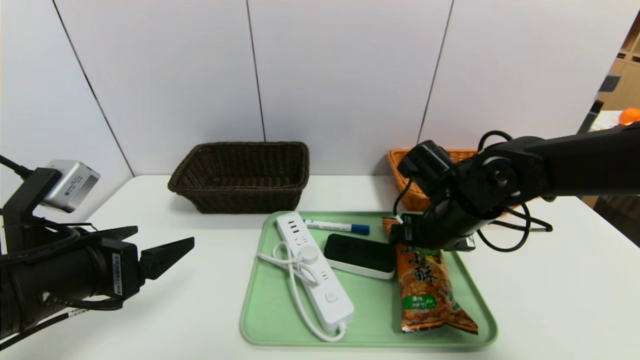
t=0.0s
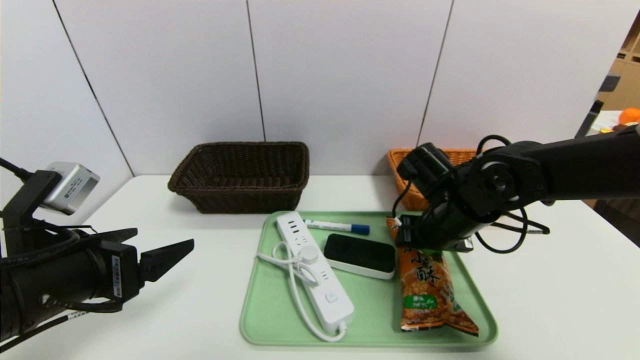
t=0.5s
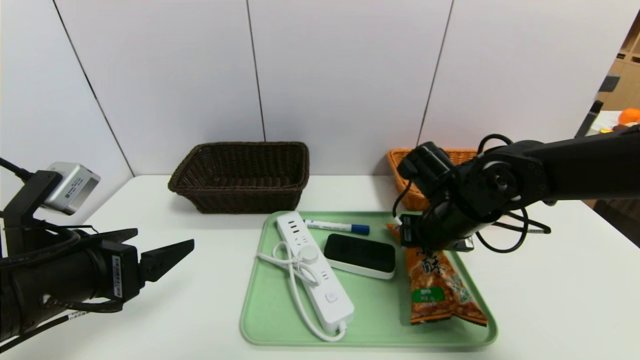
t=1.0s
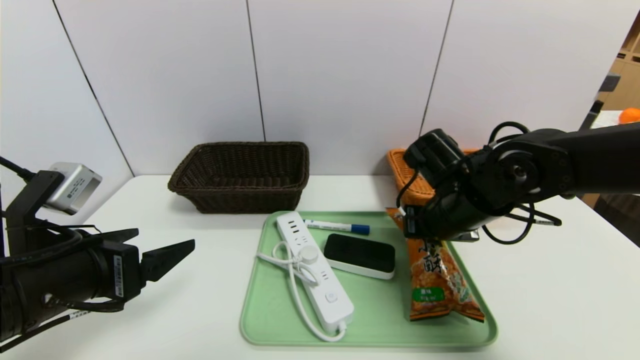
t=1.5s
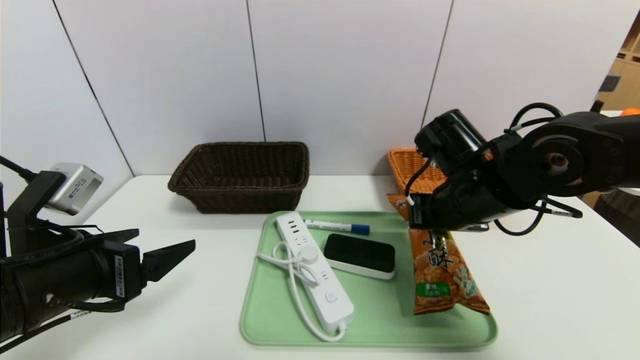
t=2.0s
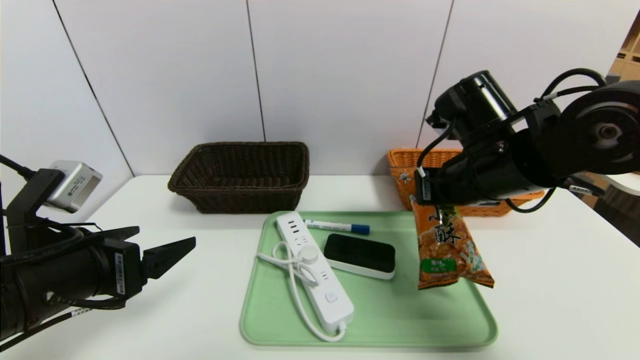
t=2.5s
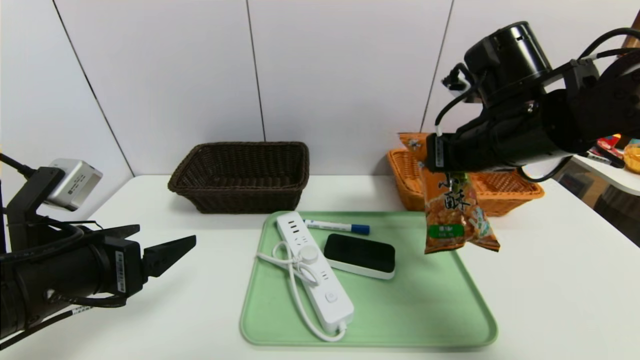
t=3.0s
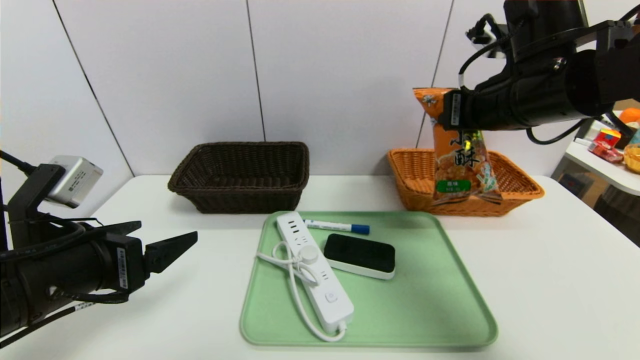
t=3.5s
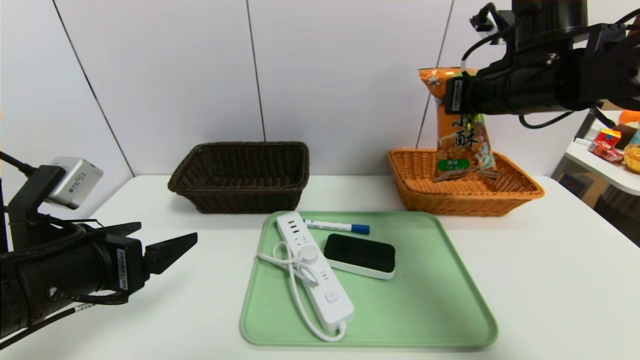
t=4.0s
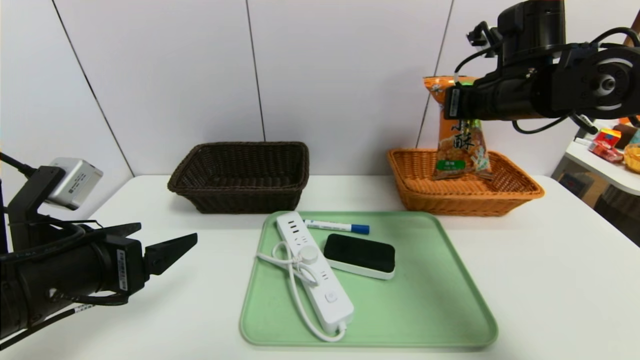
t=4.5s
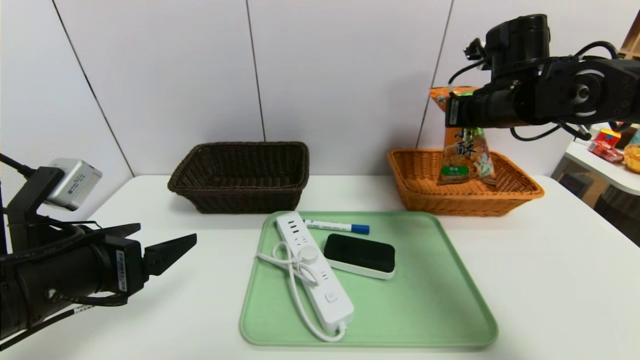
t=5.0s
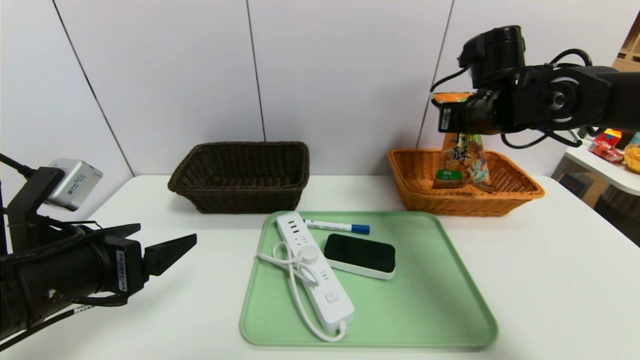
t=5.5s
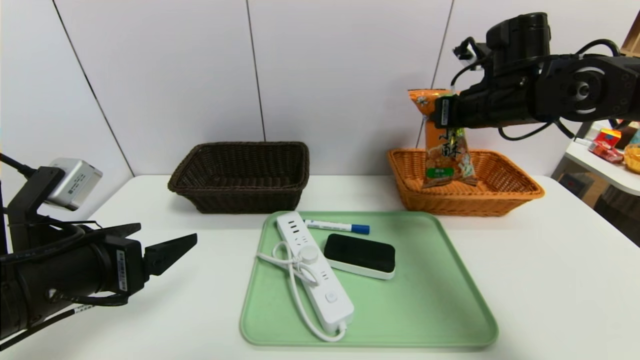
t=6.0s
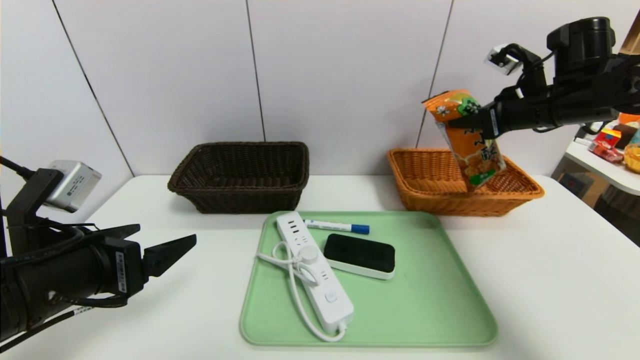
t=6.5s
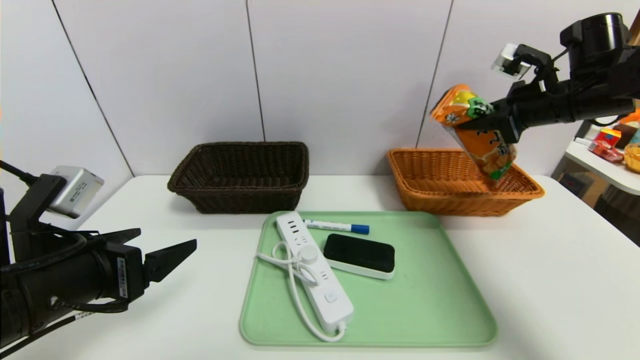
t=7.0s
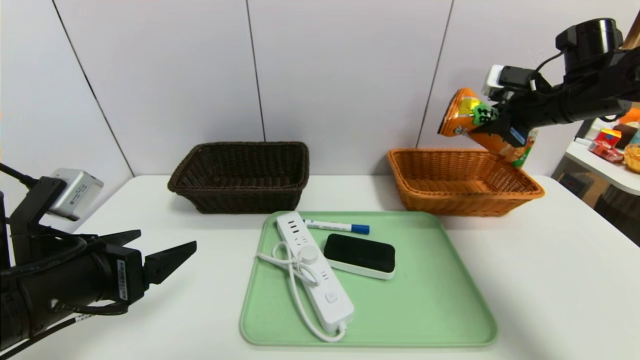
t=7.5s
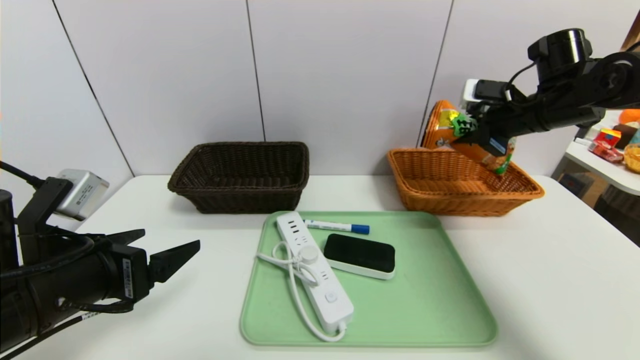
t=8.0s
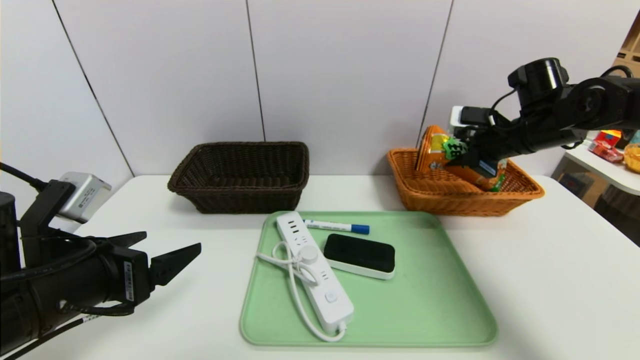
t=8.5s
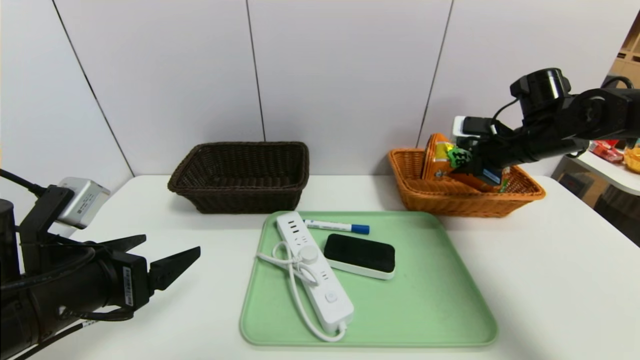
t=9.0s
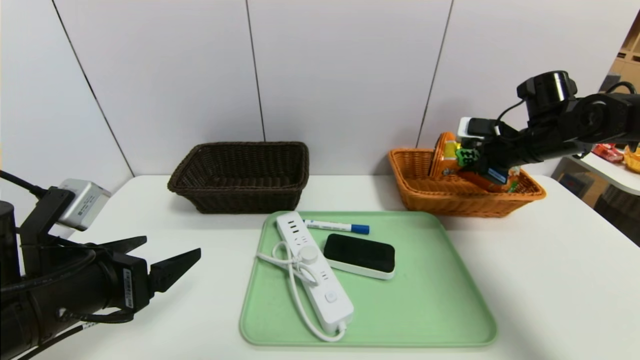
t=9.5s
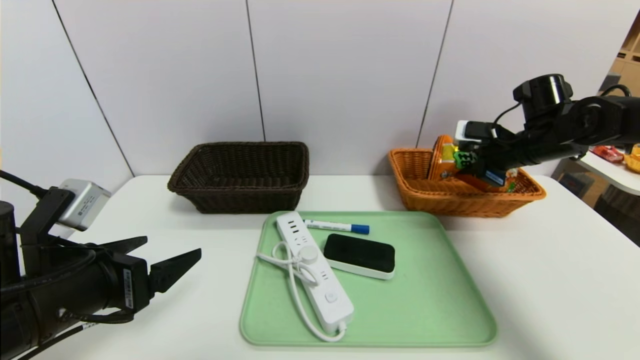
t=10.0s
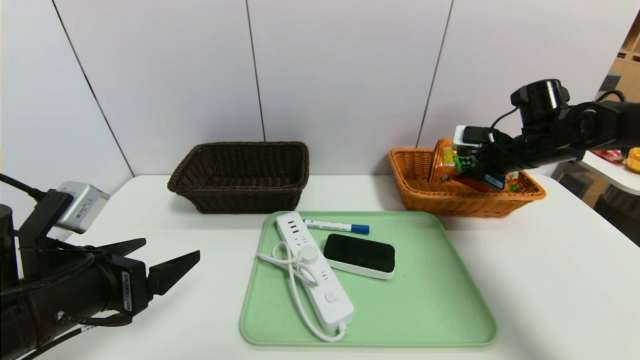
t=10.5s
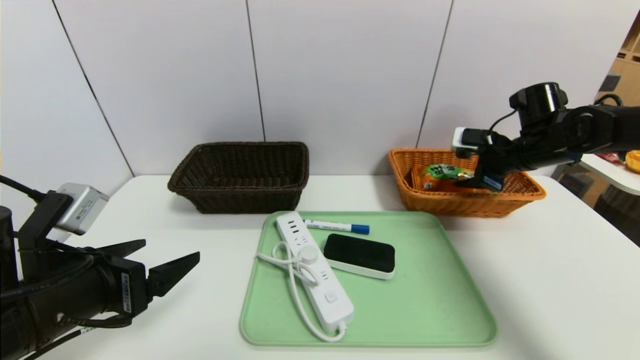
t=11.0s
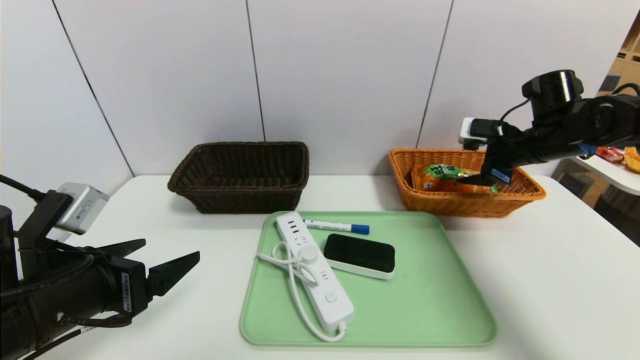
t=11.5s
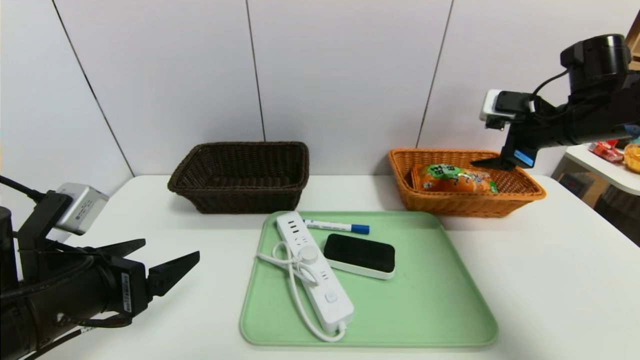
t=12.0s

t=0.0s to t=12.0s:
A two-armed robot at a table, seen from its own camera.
Task of the whole recording: place the food in the right basket with the right gripper, and place the non food items in the left basket with the left gripper.
t=0.0s to t=2.0s: The right gripper ends up some 5 cm from where it was, and closes.
t=2.0s to t=4.0s: The right gripper is displaced upward and to the right by some 10 cm.
t=4.0s to t=6.0s: The right gripper changes place by approximately 5 cm.
t=6.0s to t=8.0s: The right gripper travels to the right by roughly 5 cm.
t=8.0s to t=10.0s: The right gripper heads downward, covering some 5 cm.
t=10.0s to t=12.0s: The right gripper moves upward and backward, roughly 10 cm, and opens its fingers.

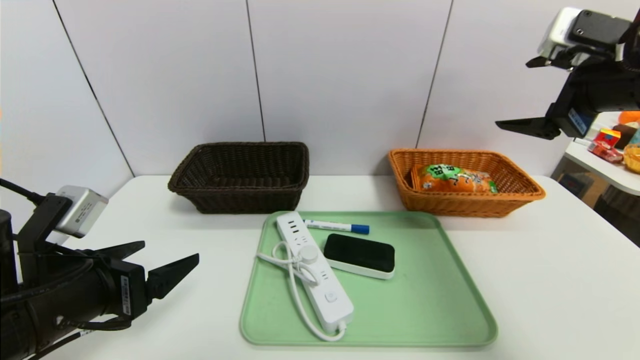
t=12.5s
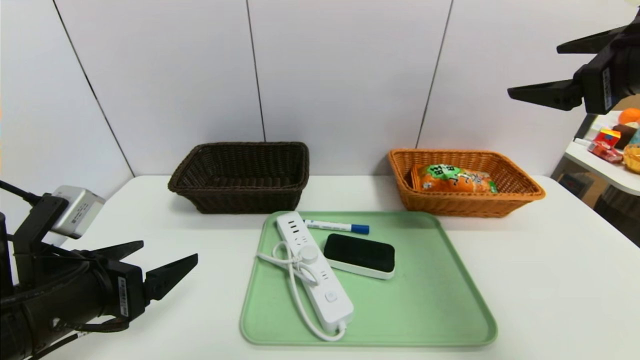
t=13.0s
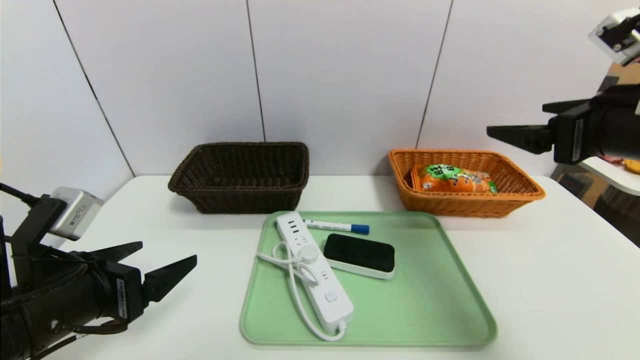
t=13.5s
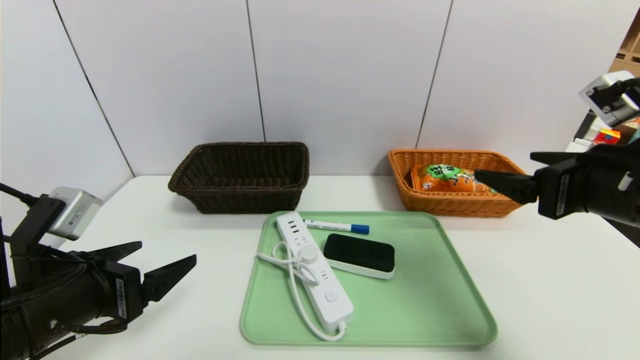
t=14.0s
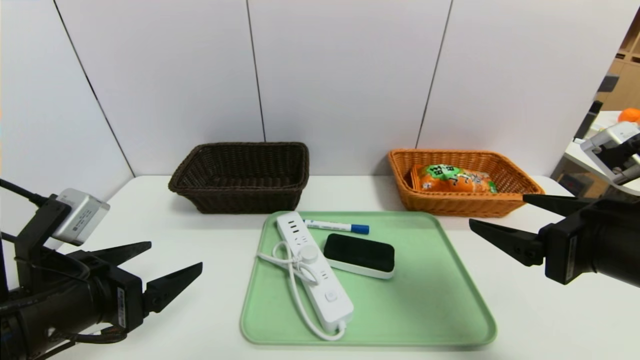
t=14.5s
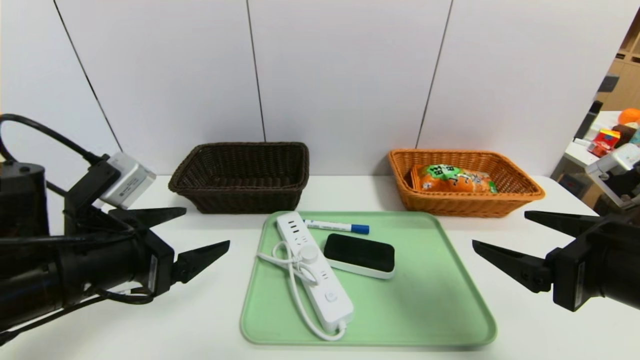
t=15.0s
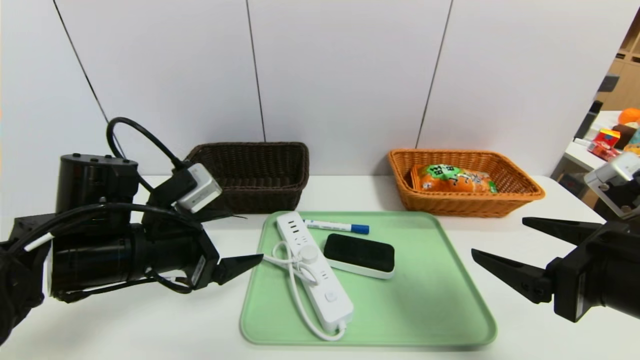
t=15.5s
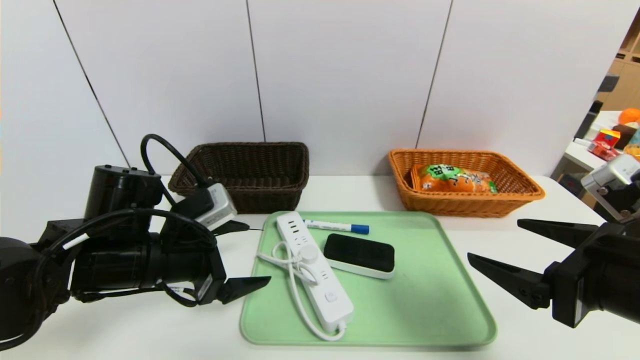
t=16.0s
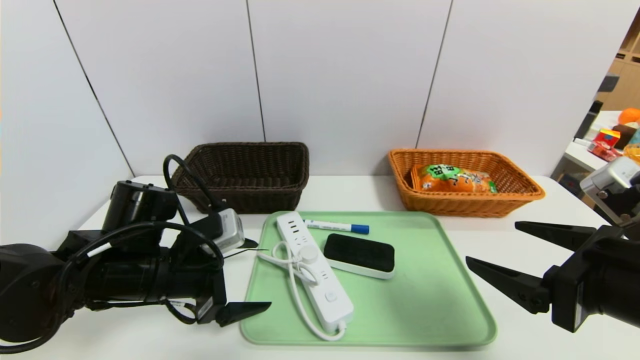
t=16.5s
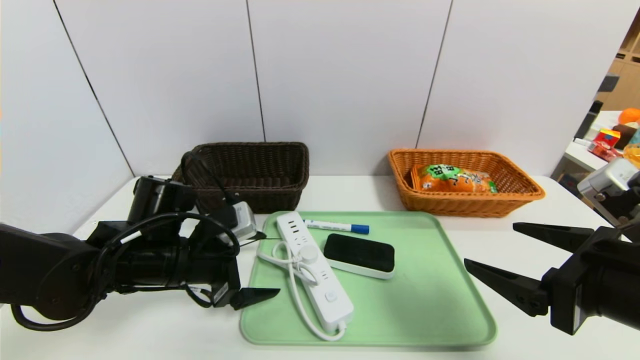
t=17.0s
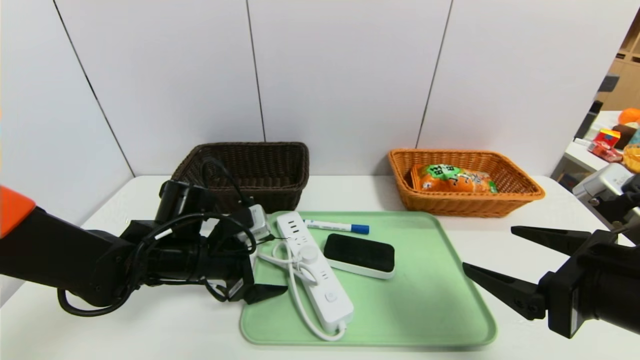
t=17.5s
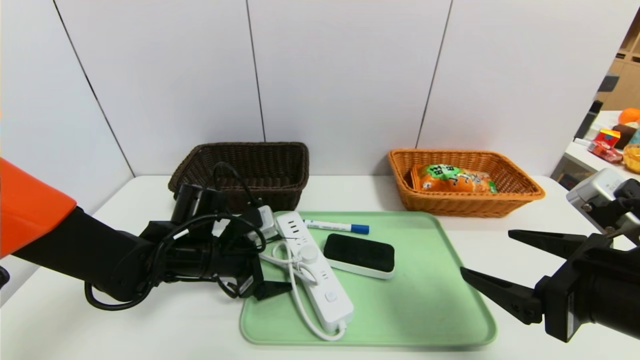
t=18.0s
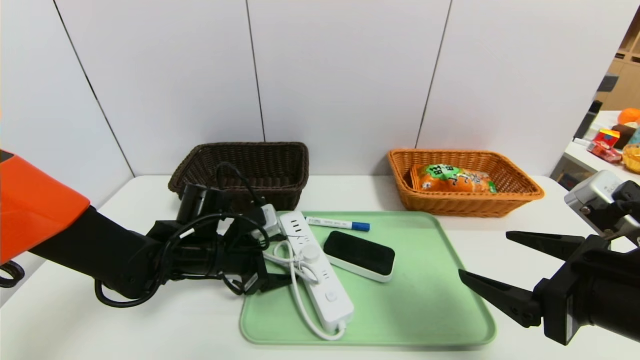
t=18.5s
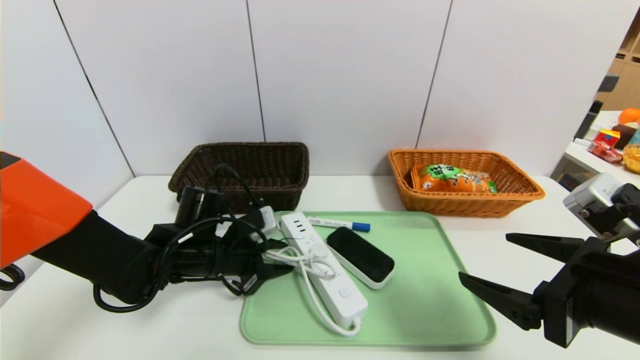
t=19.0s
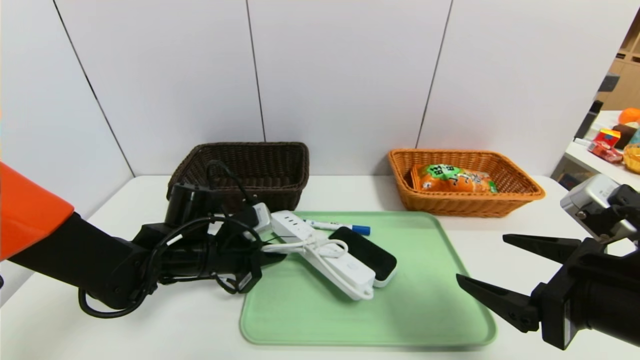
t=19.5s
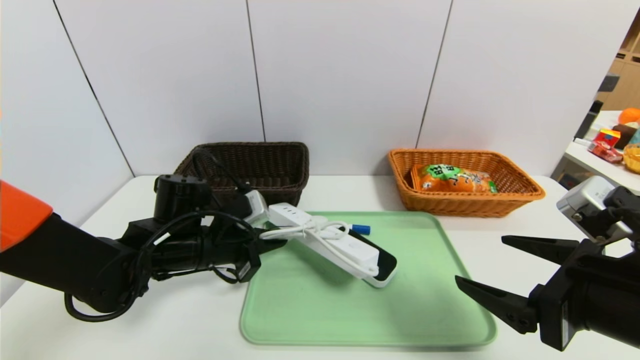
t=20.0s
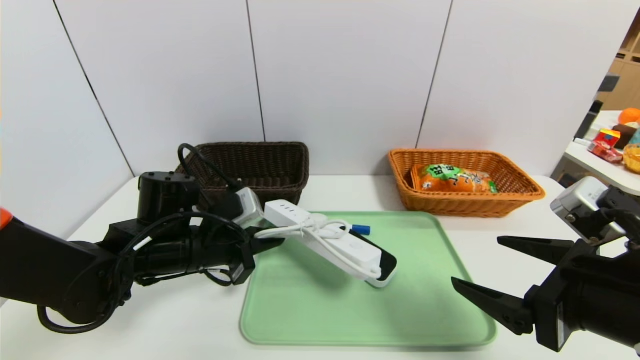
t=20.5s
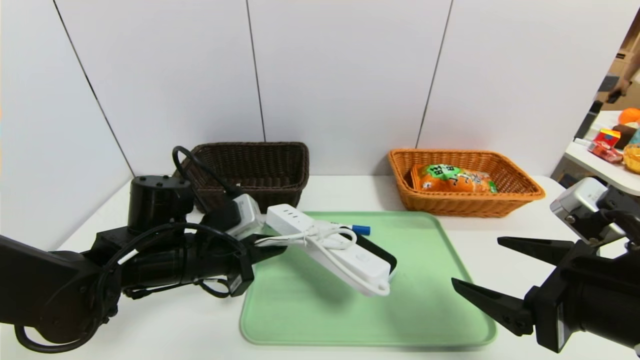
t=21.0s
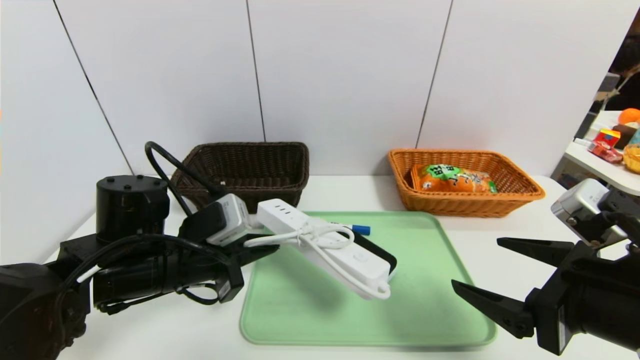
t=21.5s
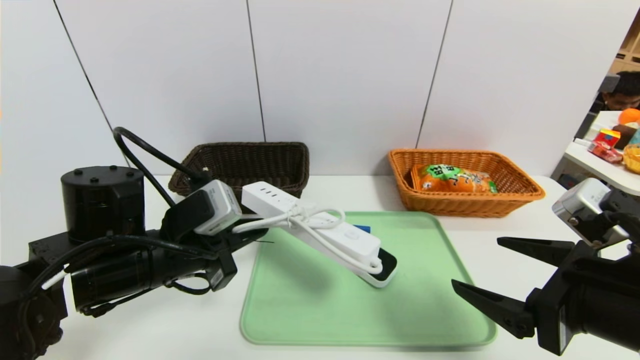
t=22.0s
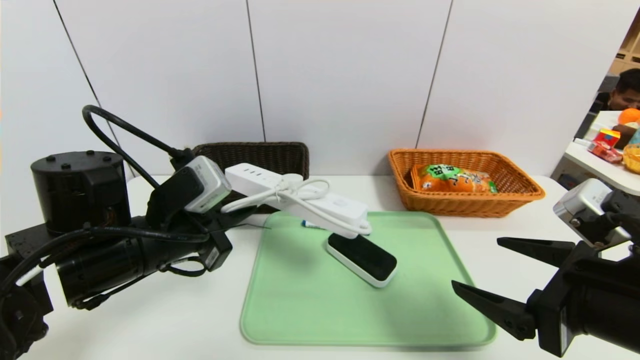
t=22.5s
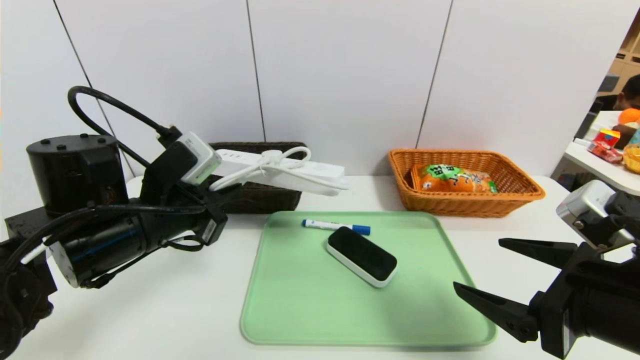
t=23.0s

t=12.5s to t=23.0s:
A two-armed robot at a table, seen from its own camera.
Task of the whole recording: place the food in the right basket with the right gripper, and place the non food items in the left basket with the left gripper.
t=12.5s to t=14.5s: The right gripper is displaced backward and downward by roughly 15 cm.
t=14.5s to t=16.5s: The left gripper goes roughly 10 cm forward.
t=16.5s to t=19.0s: The left gripper heads forward, covering about 5 cm, and closes.
t=19.0s to t=21.0s: The left gripper travels upward by some 5 cm.
t=21.0s to t=23.0s: The left gripper goes roughly 5 cm upward.
